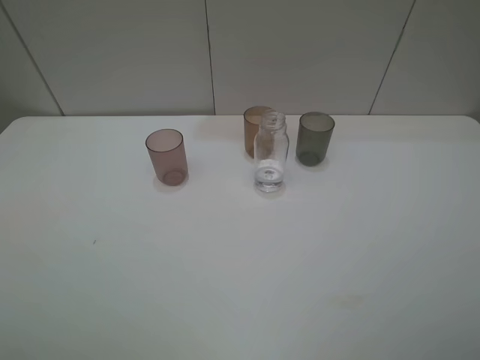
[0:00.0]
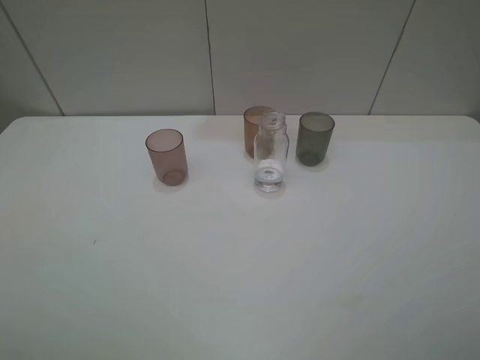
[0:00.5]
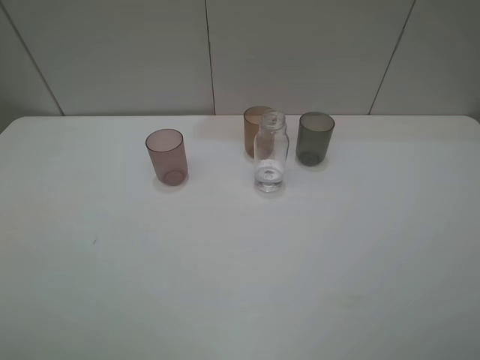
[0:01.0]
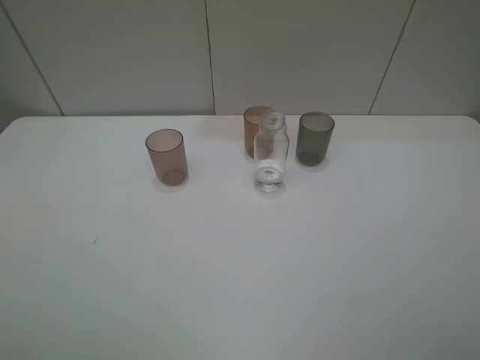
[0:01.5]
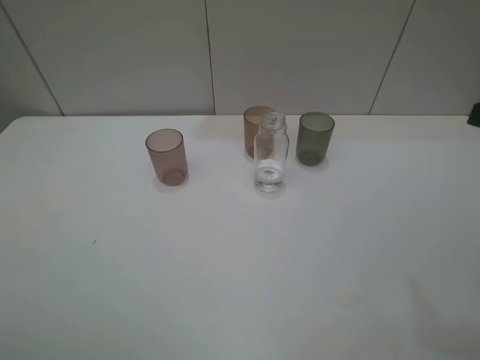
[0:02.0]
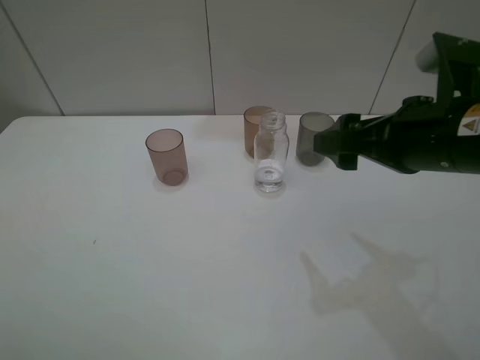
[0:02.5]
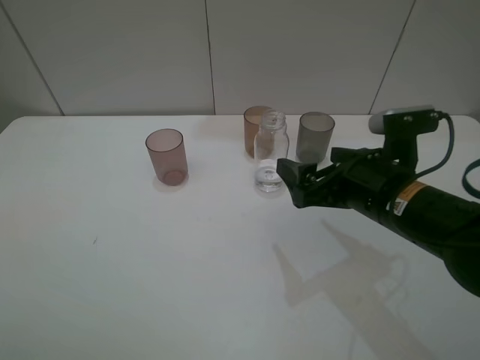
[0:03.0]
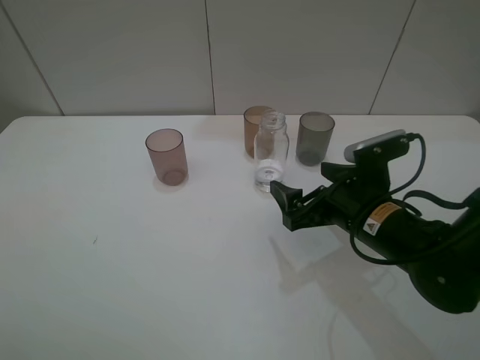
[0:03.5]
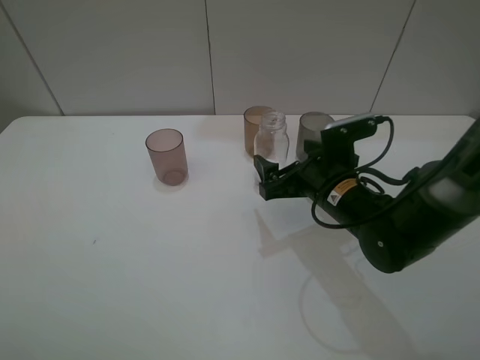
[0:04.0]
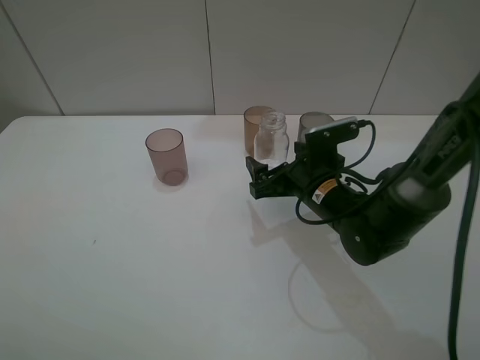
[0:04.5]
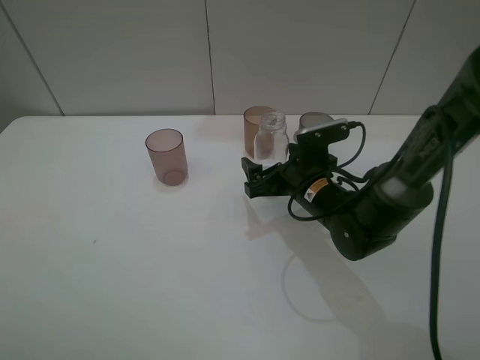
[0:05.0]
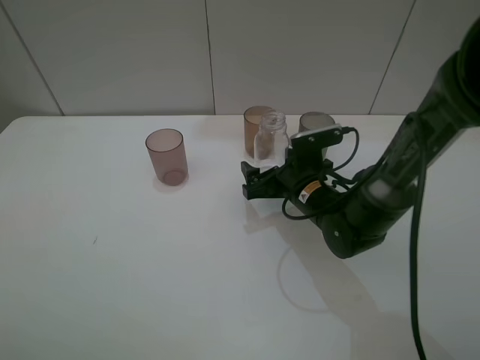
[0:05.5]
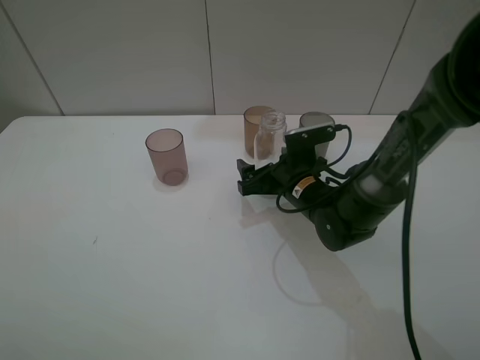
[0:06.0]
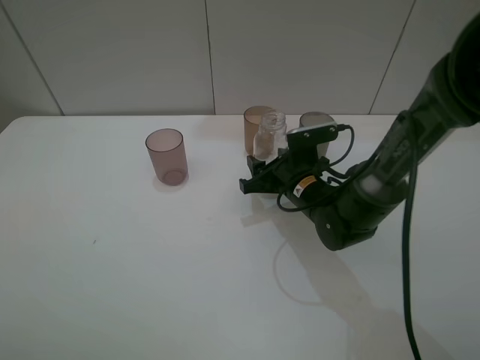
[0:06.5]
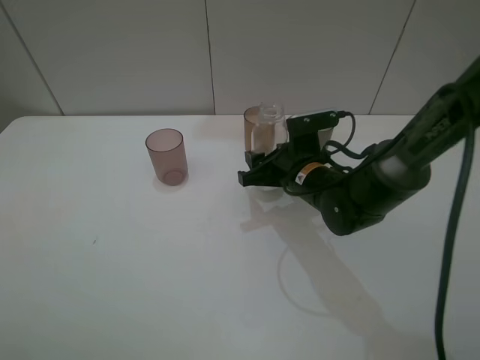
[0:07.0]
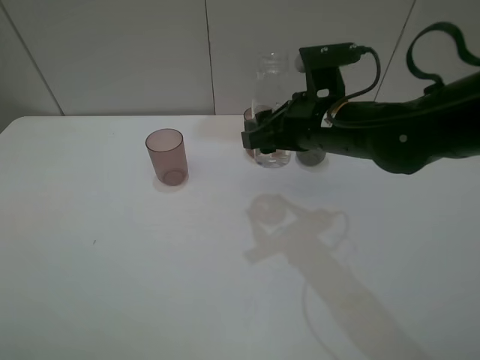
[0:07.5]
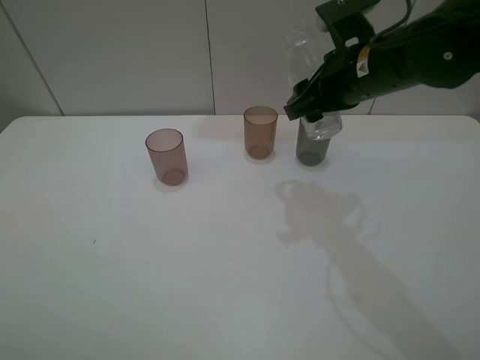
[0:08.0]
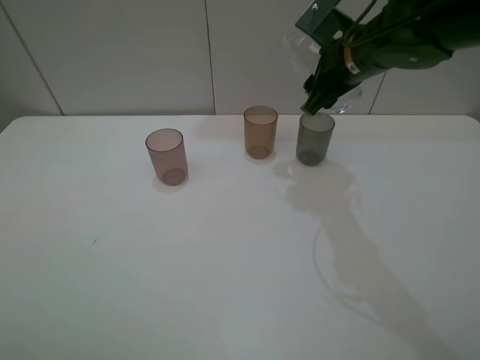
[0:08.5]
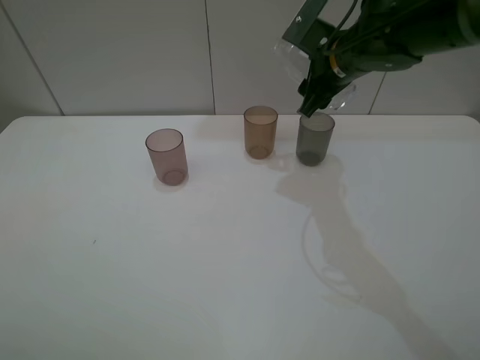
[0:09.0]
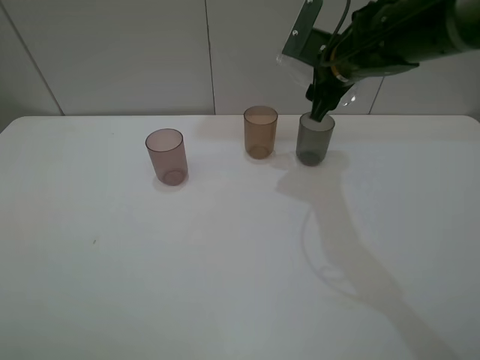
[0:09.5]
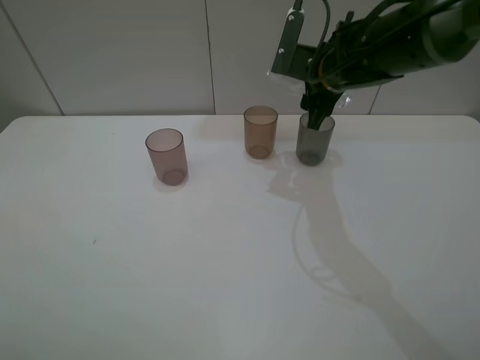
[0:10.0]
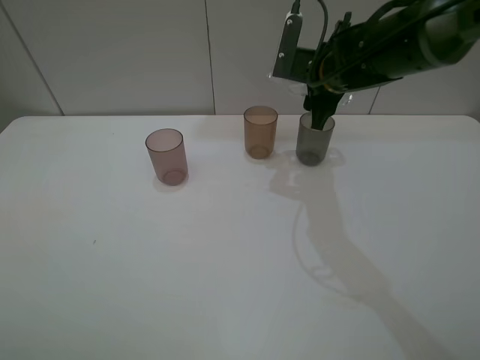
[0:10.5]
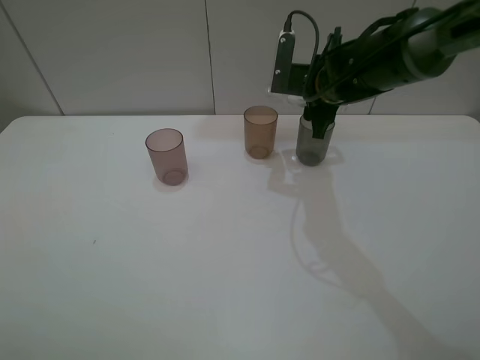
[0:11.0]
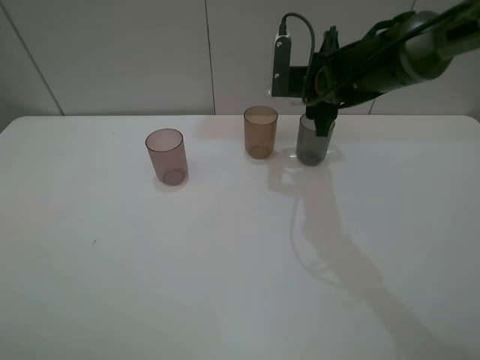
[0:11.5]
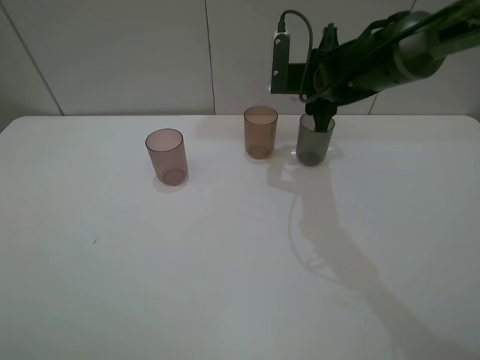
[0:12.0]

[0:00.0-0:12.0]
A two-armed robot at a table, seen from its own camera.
Task of the whole recording: pick up the bottle filled with water and pour water into the middle cup of the three cups.
Step, 0.0 to 6.0 s: Grasp the transparent bottle with the right gripper.
2.0 to 4.0 s: The right gripper moves downward, to the left and forward, approximately 30 cm.
4.0 to 6.0 s: The right gripper moves some 5 cm.
6.0 to 8.0 s: The right gripper moves upward, approximately 20 cm, and closes up.
8.0 to 10.0 s: The right gripper goes roughly 10 cm forward.
10.0 to 12.0 s: The grippers move only a little.

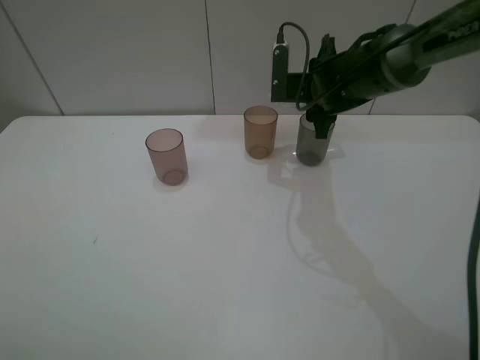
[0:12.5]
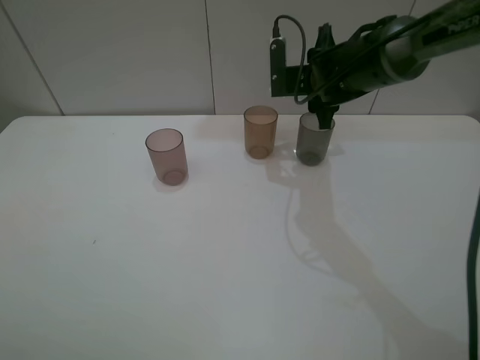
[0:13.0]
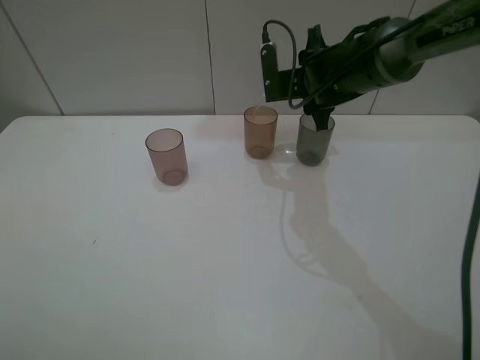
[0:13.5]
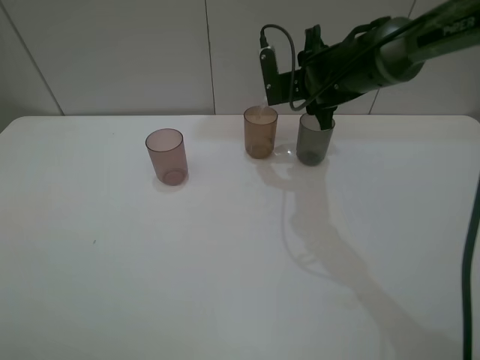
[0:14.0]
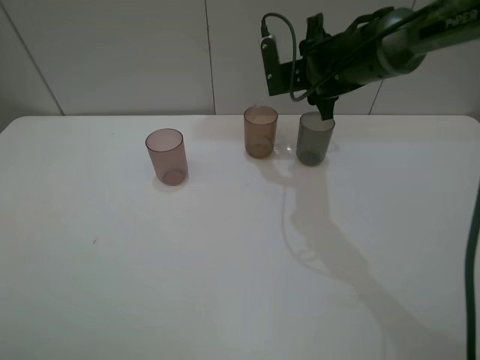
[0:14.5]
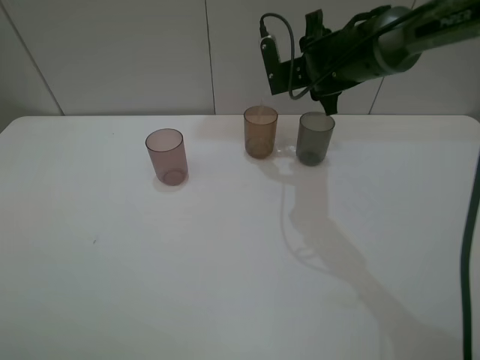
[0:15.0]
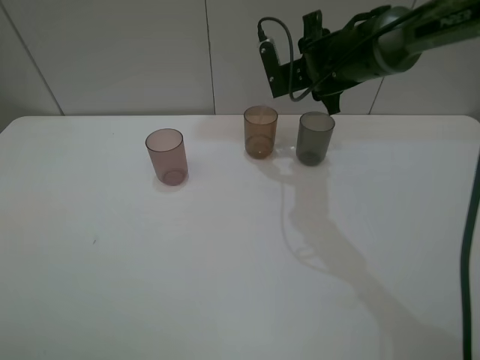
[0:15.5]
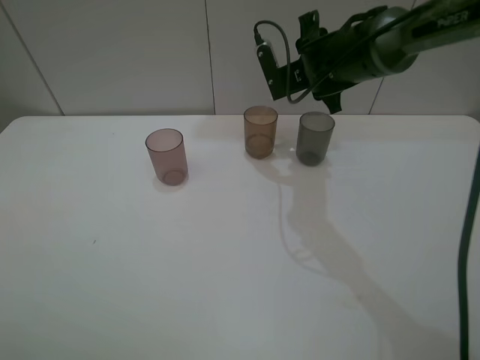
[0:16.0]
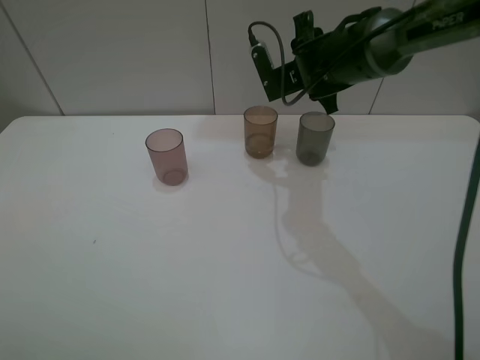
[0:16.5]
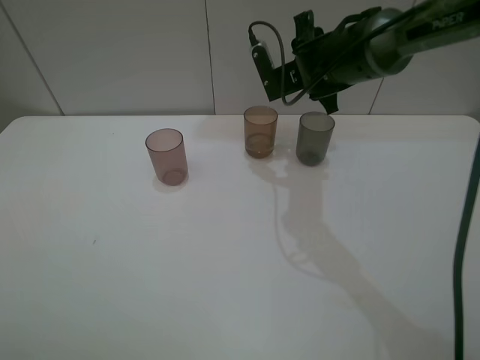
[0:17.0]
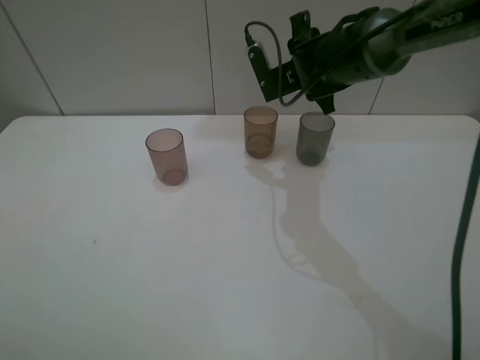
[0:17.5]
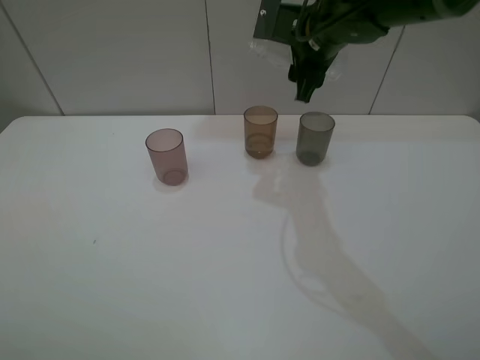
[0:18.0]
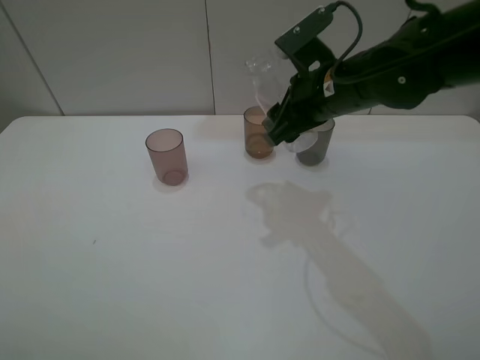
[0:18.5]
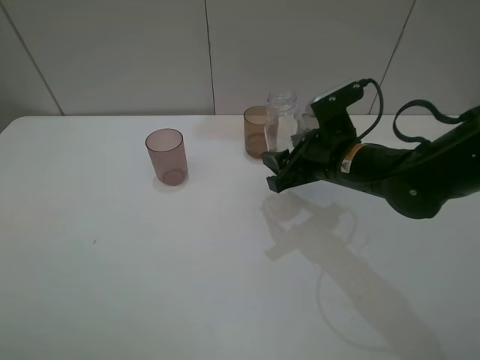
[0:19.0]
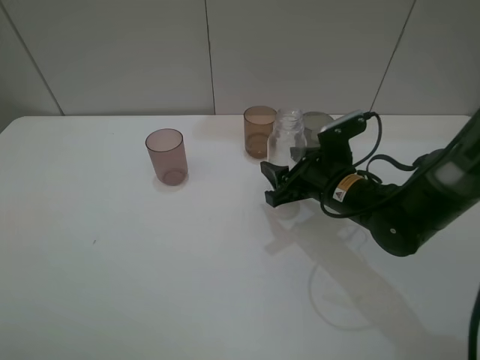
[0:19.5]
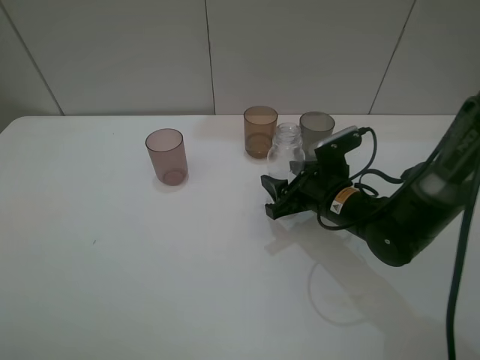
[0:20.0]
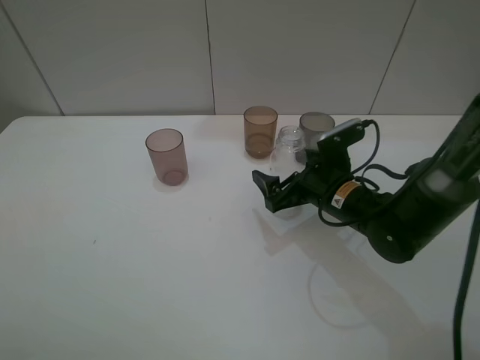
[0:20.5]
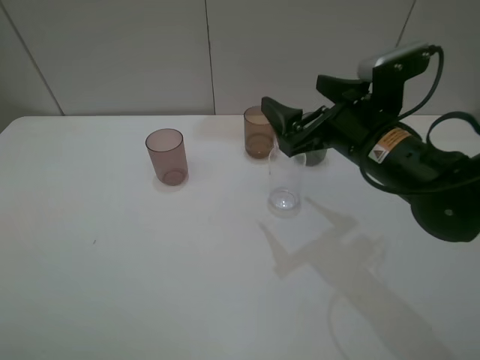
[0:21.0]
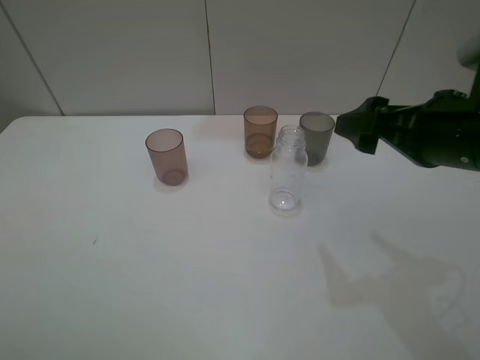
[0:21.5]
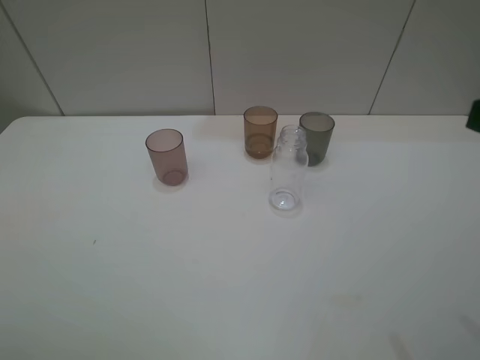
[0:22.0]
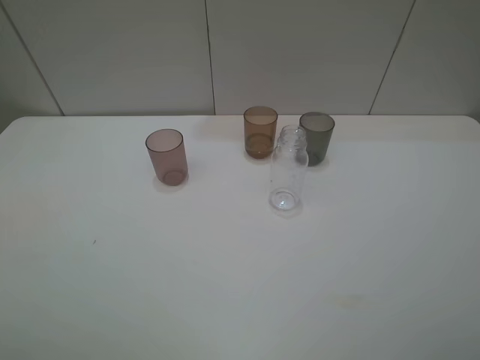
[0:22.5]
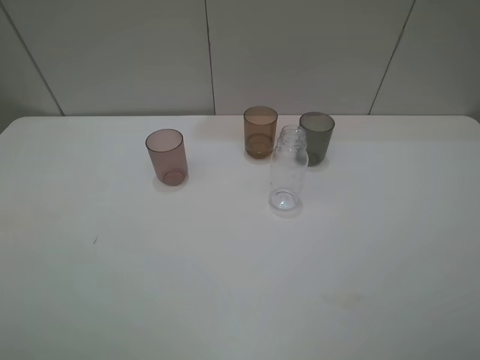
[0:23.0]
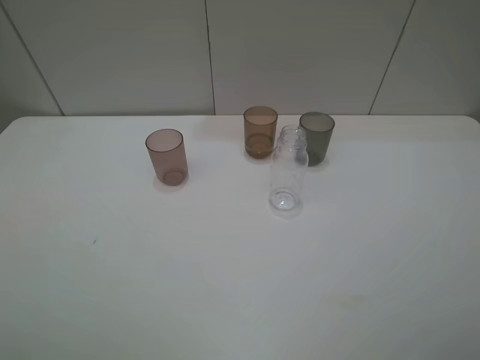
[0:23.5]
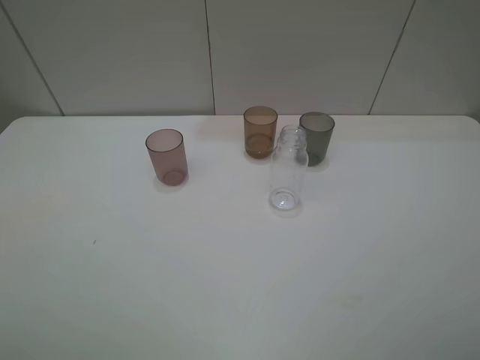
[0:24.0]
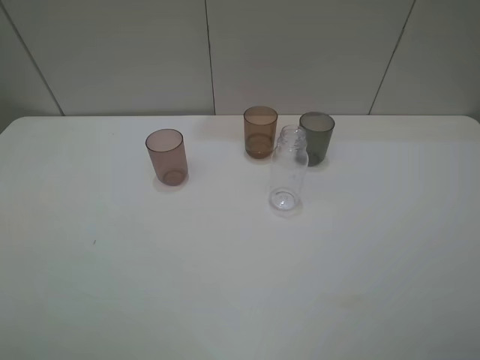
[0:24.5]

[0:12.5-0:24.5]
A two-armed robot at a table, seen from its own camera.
Task of the whole recording: pick up the bottle filled with water and pour water into the middle cup of the three cups.
Step, 12.5 to 20.5 s: Place the transparent bottle with the right gripper.
12.5 to 14.5 s: There are only small adjustments of the grippers.
14.5 to 16.5 s: The grippers move only a little.
16.5 to 18.5 s: The right gripper heads backward, covering about 10 cm.
18.5 to 20.5 s: The right gripper moves downward, some 10 cm, and opens up.
20.5 to 22.5 s: The right gripper is displaced backward, upward and to the right by about 40 cm.

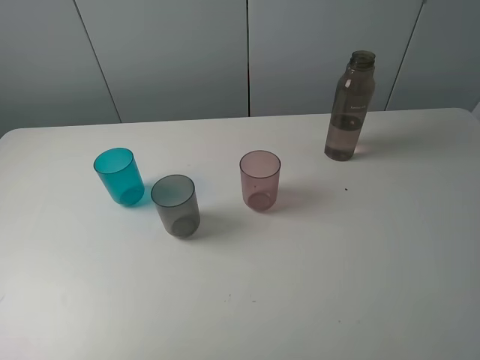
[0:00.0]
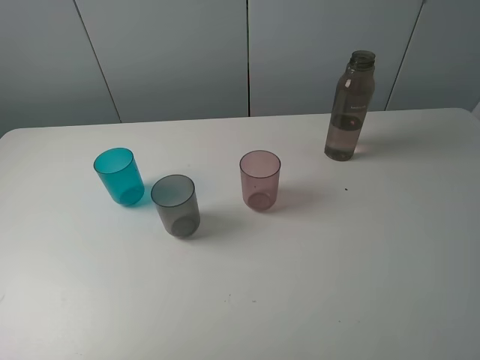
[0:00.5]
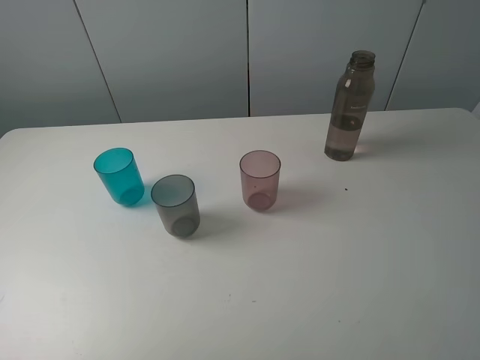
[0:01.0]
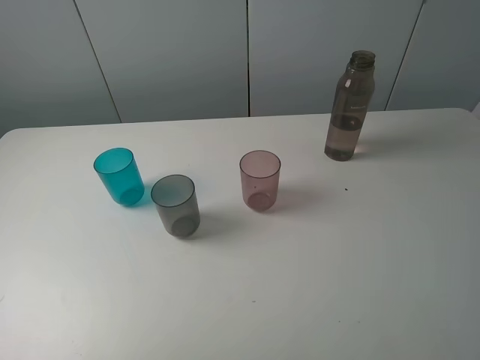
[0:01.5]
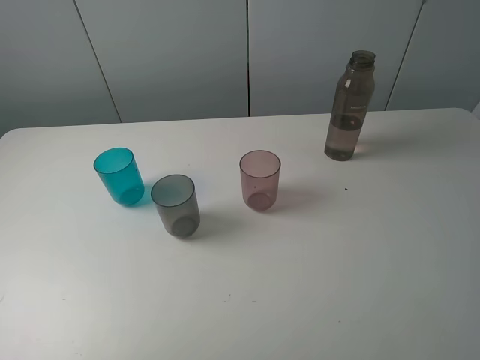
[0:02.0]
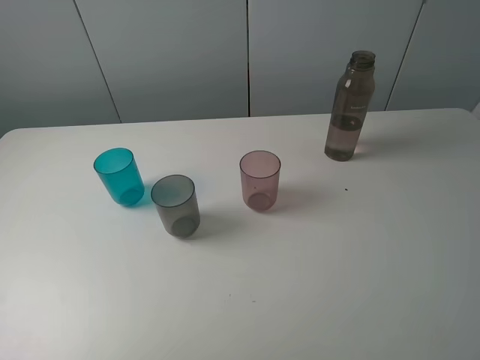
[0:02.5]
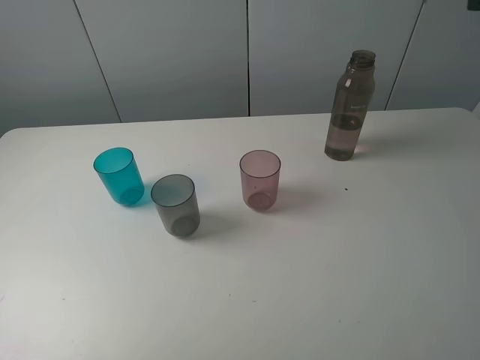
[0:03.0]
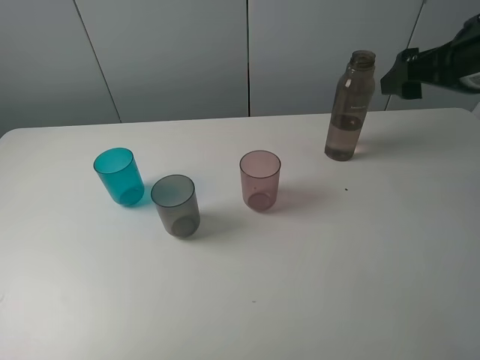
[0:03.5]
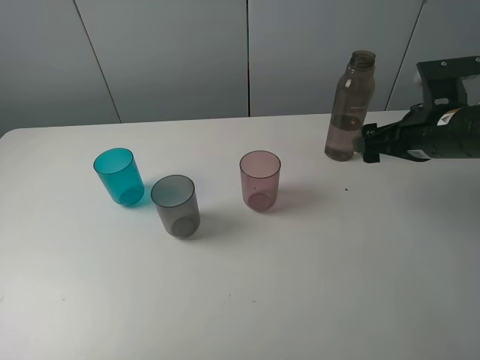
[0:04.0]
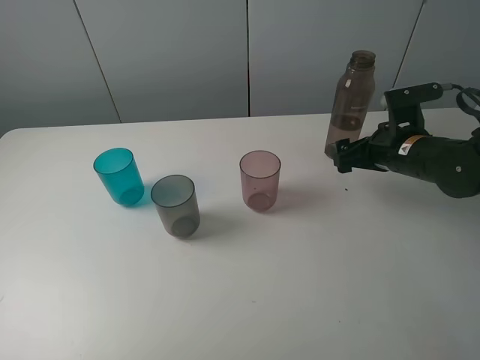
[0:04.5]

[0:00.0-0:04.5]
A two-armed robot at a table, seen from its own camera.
Task of the whole recording: pick up the bottle filled with water and pour water into the middle cup of the three cups.
0.0 to 2.0 s: The two grippers keep their place.
2.0 to 4.5 s: The right gripper travels forward and downward by roughly 35 cm.
